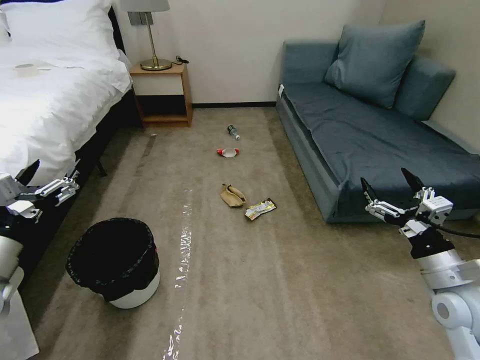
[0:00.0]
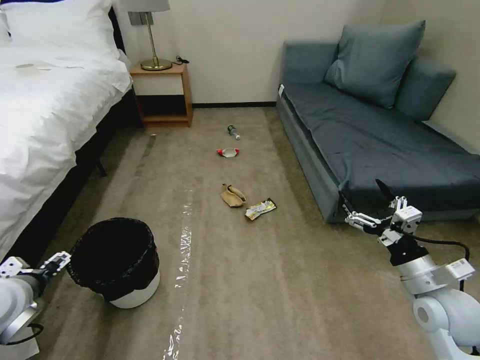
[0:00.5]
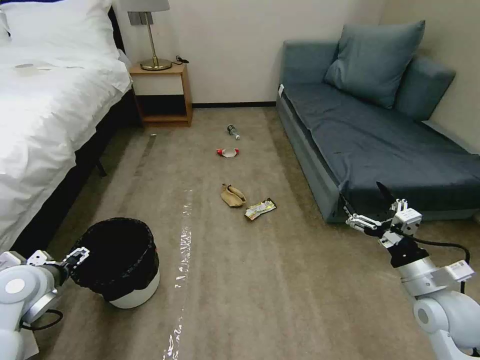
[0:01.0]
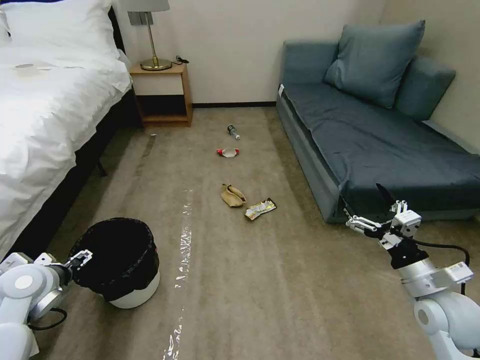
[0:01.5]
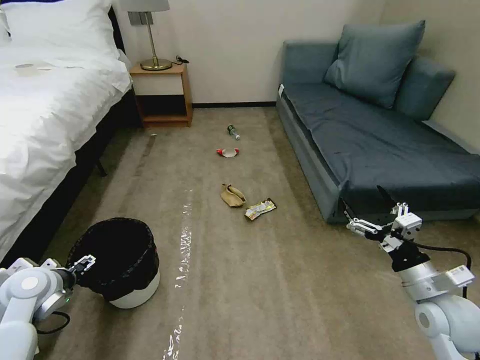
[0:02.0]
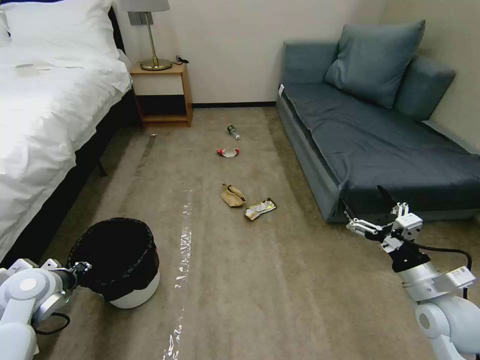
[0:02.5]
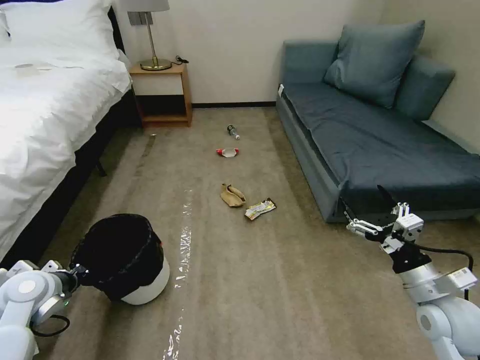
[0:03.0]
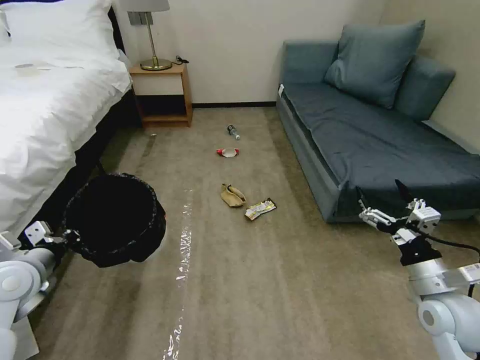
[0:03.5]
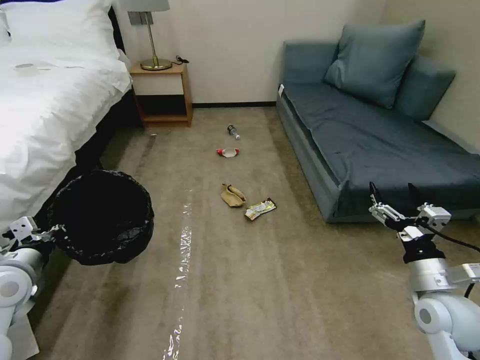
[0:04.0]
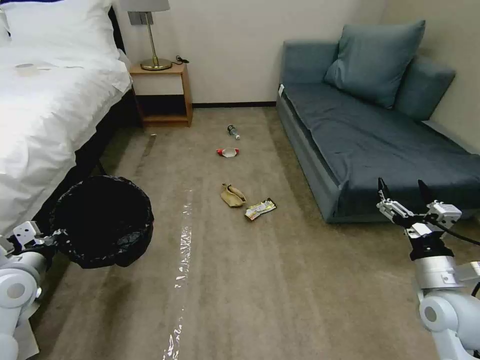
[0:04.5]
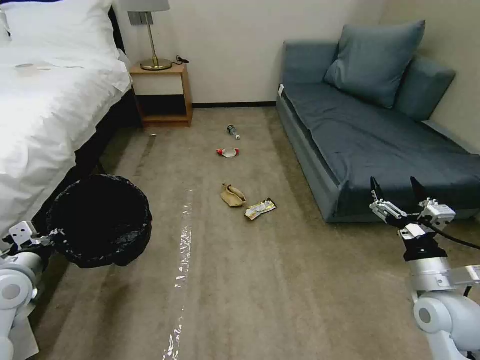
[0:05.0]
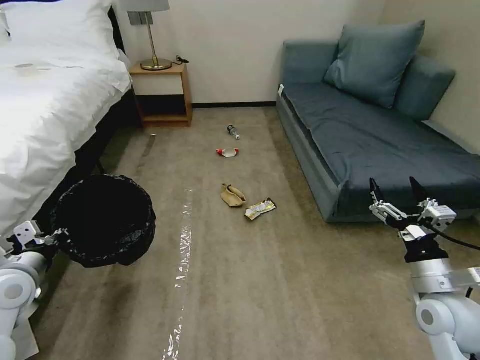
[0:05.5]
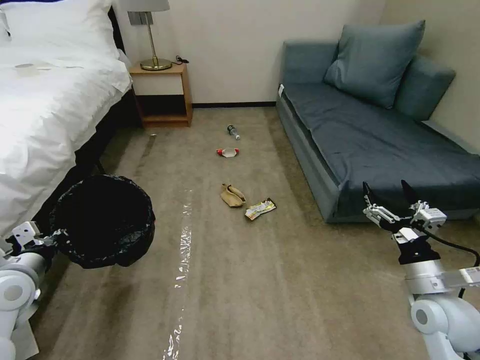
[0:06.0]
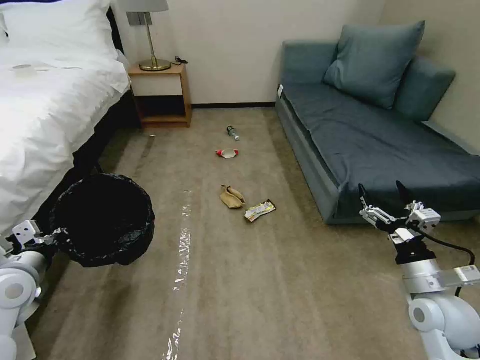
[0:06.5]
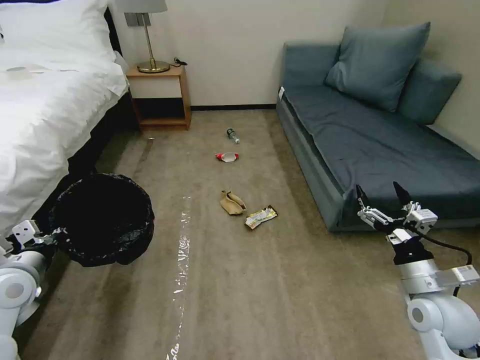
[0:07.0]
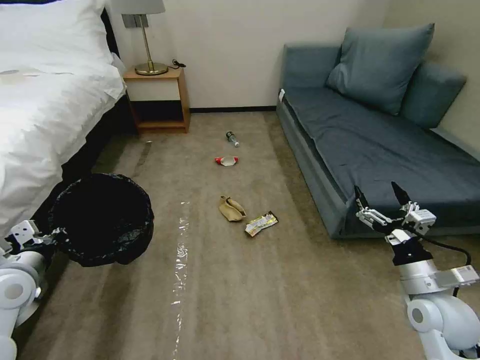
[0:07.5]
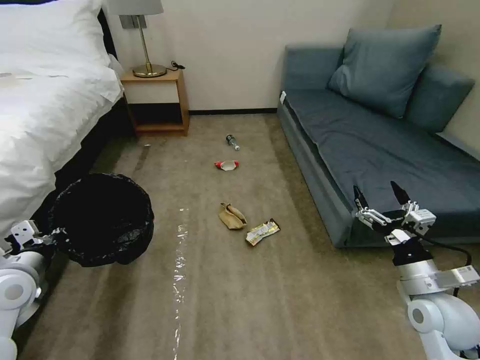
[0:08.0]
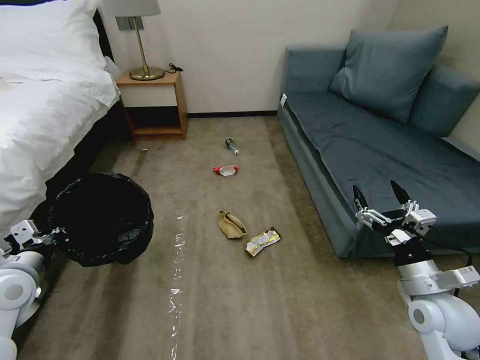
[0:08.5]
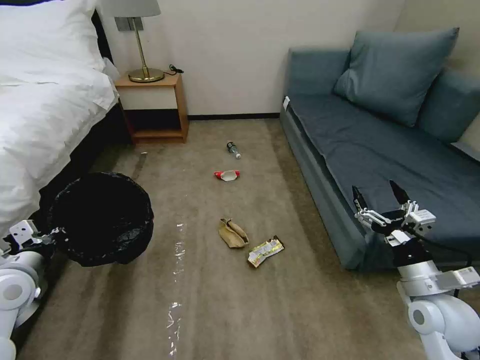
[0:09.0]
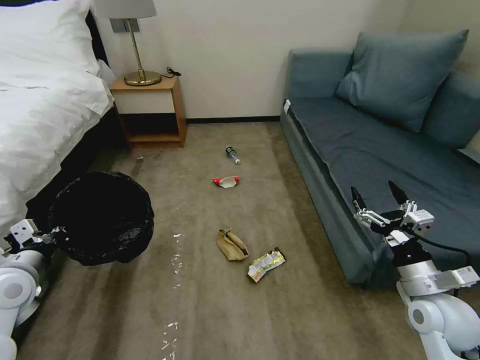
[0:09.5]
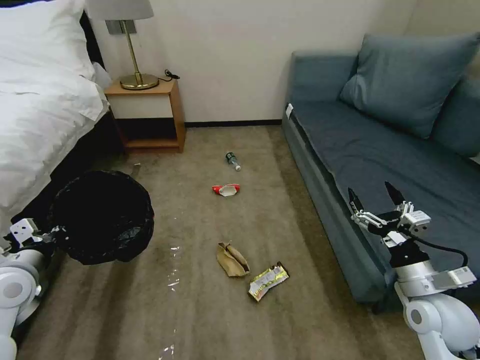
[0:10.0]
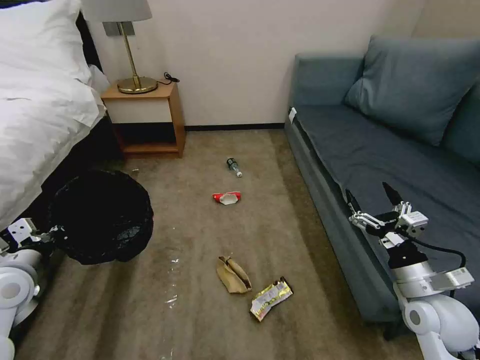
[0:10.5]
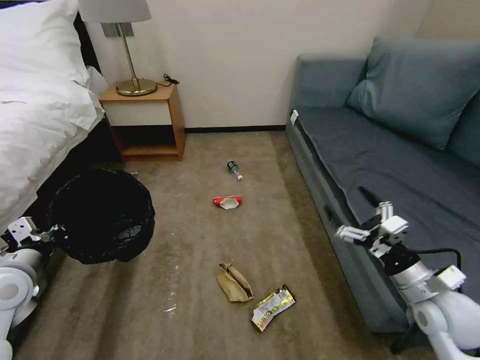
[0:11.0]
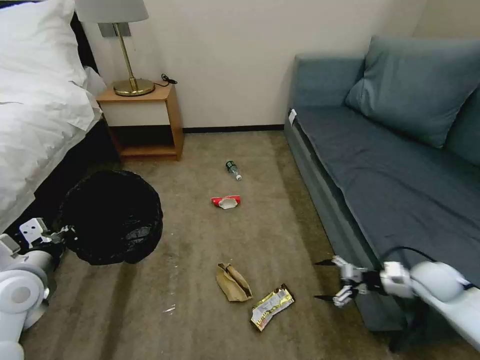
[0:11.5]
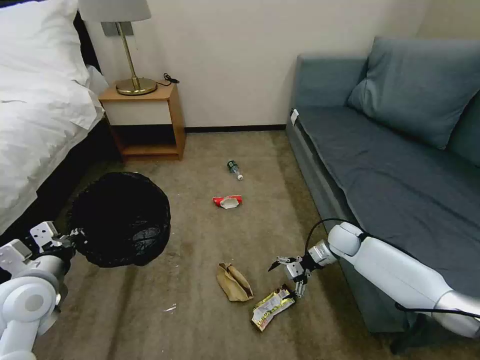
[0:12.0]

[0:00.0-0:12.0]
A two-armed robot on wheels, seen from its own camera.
Task of the whole recording: Pick up the trash bin, then pick up the garbage on the floor and place it into the trash bin.
0:02.0 to 0:04.0: The left gripper moves upward, approximately 5 cm, and closes its fingers.
0:04.0 to 0:06.0: The grippers move only a little.
0:10.0 to 0:12.0: The right gripper shifts approximately 25 cm forward and downward.

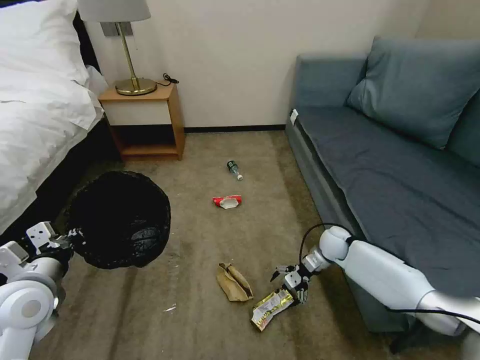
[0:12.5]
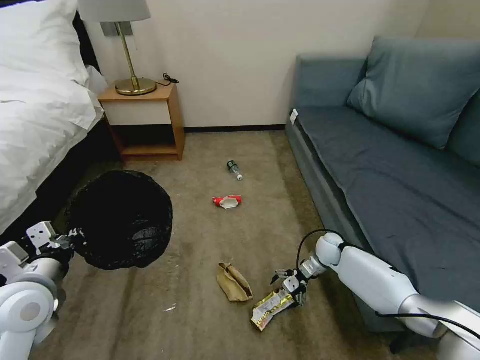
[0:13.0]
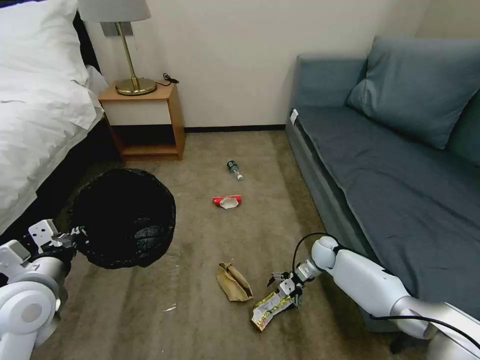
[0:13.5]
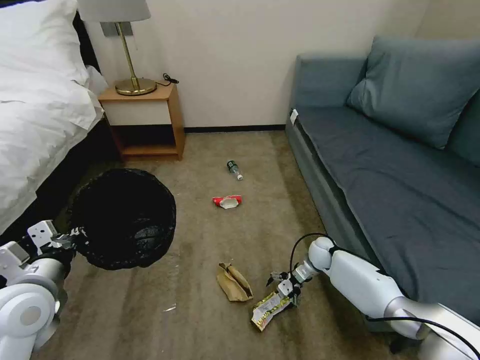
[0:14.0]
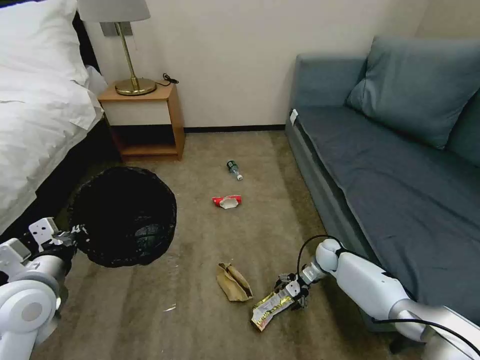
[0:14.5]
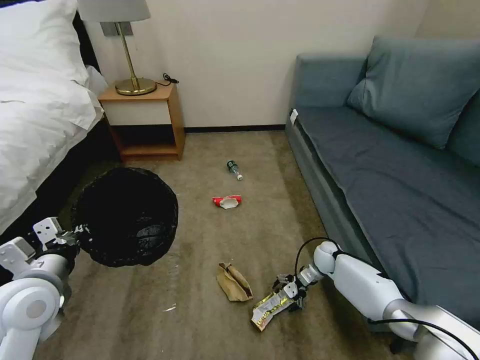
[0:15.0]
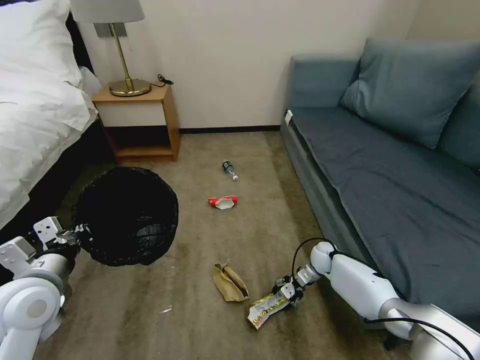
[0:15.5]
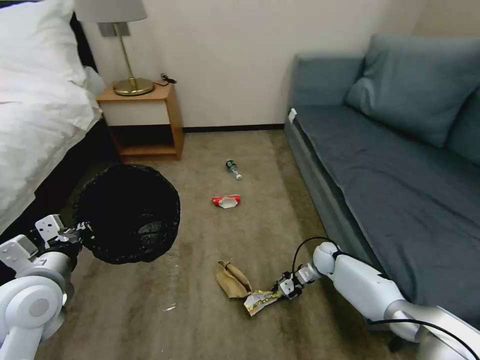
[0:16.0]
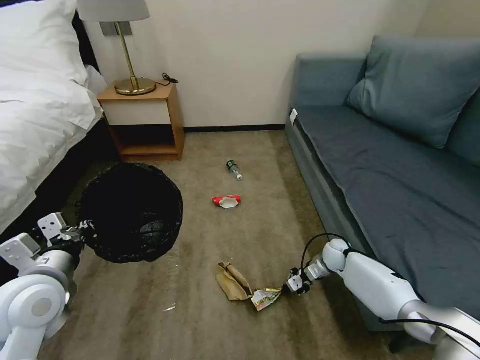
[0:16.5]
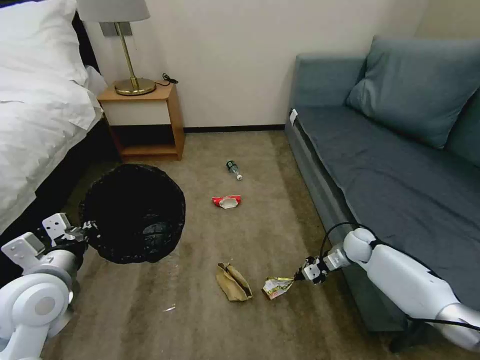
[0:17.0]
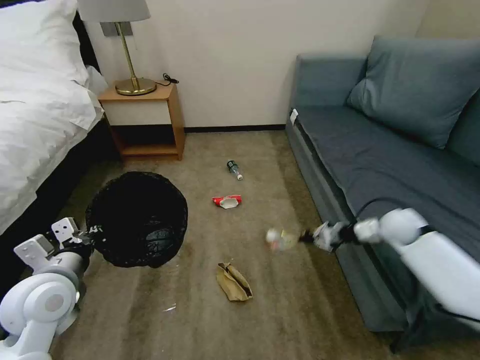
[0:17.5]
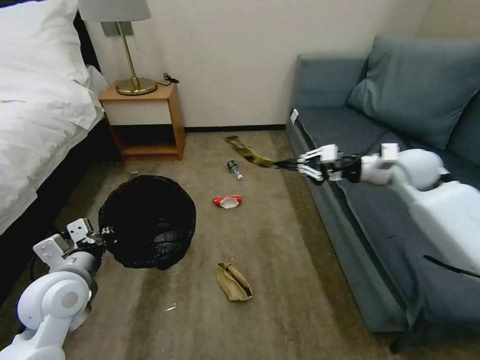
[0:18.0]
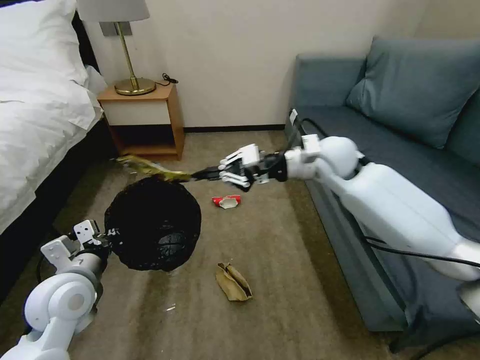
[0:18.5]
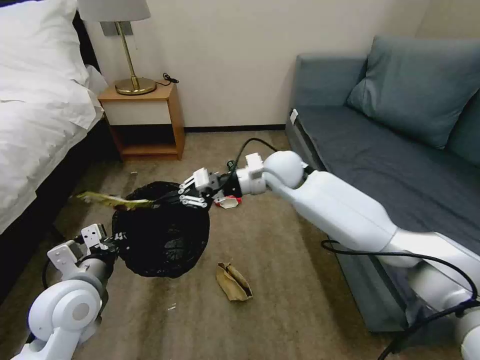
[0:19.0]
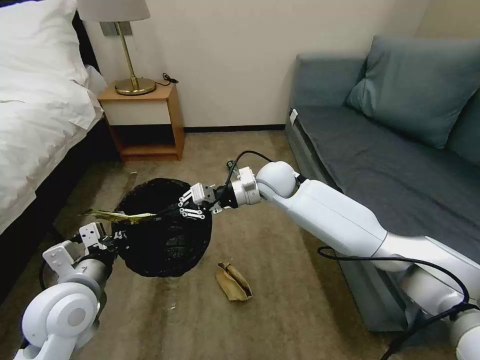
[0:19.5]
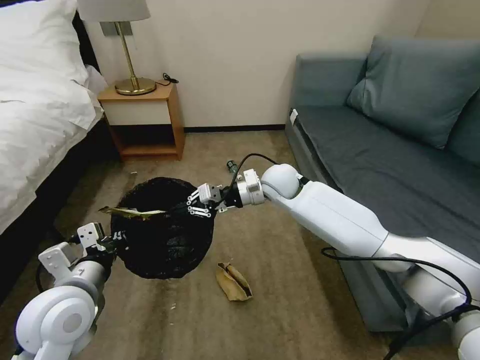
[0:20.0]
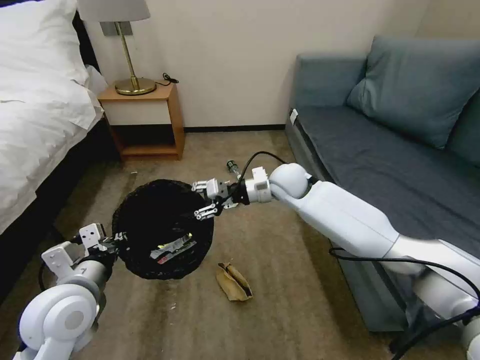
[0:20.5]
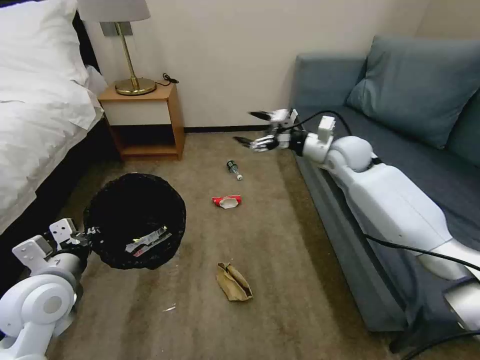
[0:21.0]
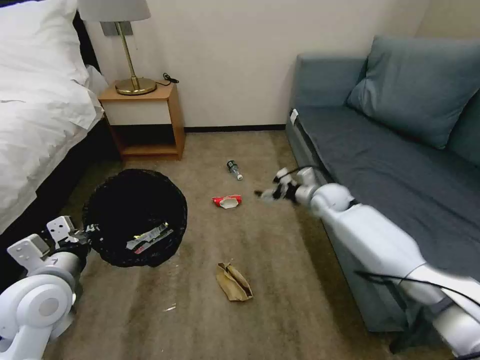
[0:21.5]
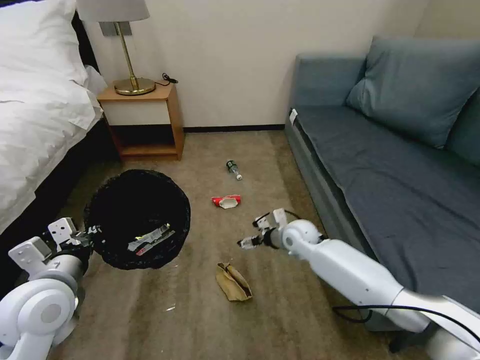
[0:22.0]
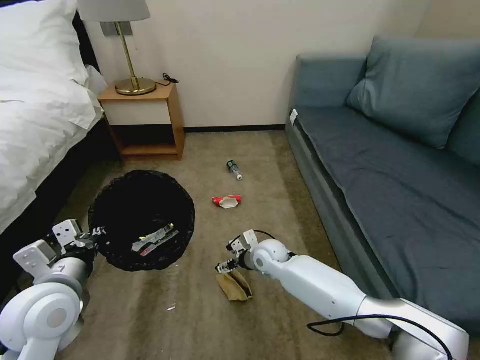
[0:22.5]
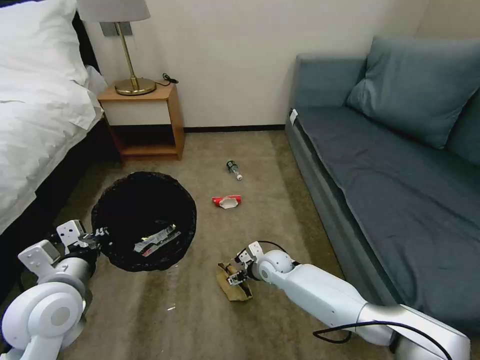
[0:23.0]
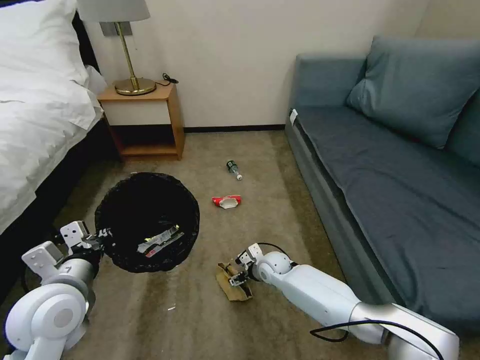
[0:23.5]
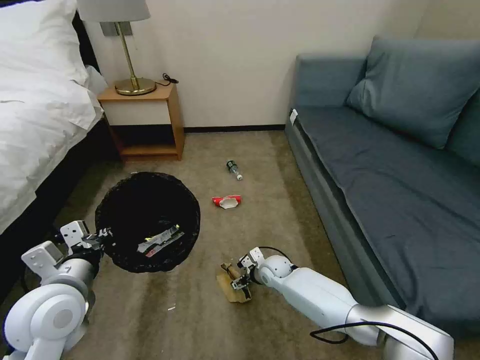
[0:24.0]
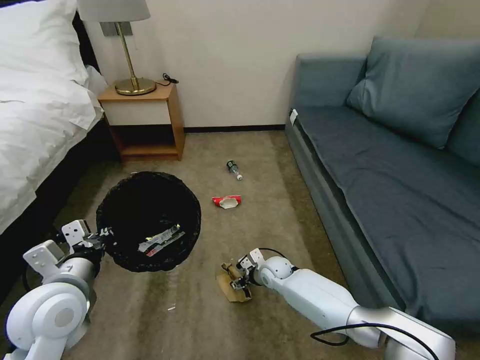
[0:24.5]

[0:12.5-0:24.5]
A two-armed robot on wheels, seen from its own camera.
Task of the whole recording: Pick up the trash bin, then pick up the garbage on the floor and place it into the trash bin.
0:12.5 to 0:14.5: The right gripper is displaced downward by roughly 5 cm.
0:14.5 to 0:16.5: The right gripper closes.
0:16.5 to 0:18.5: The right gripper goes roughly 35 cm upward.
0:18.5 to 0:20.5: The right gripper shifts approximately 10 cm downward and to the left, and opens.
0:20.5 to 0:22.5: The right gripper travels downward and backward by some 20 cm, and opens up.
0:22.5 to 0:24.5: The right gripper shifts about 10 cm downward.

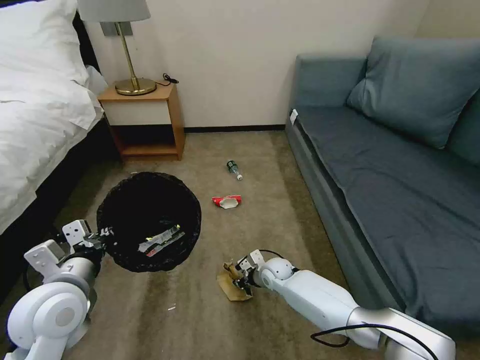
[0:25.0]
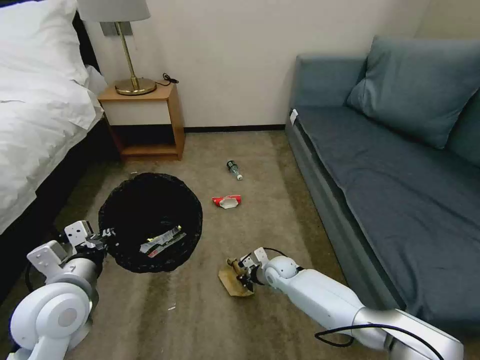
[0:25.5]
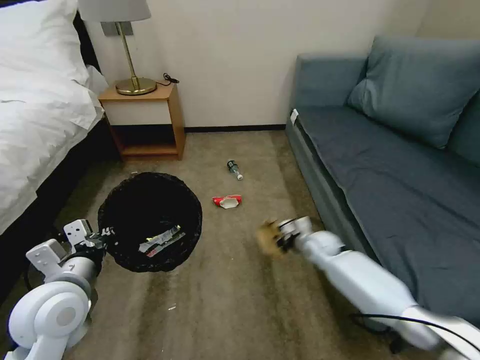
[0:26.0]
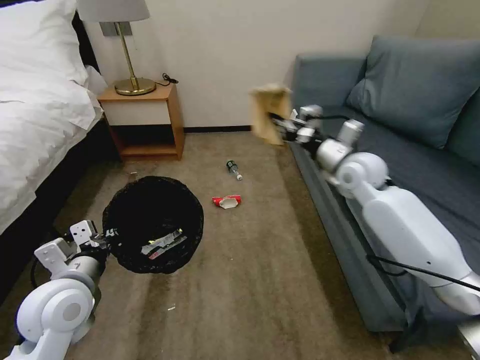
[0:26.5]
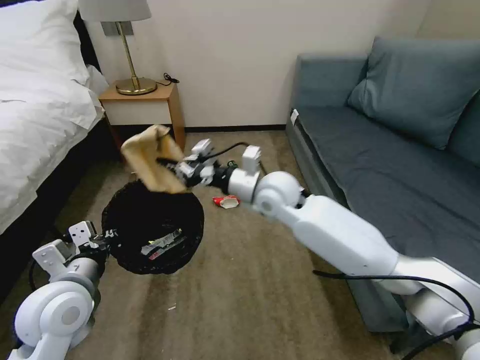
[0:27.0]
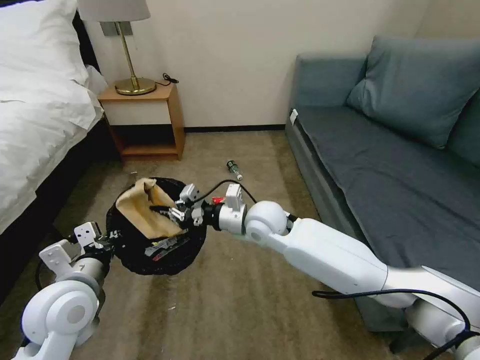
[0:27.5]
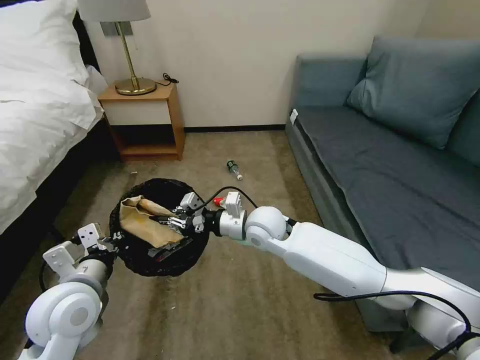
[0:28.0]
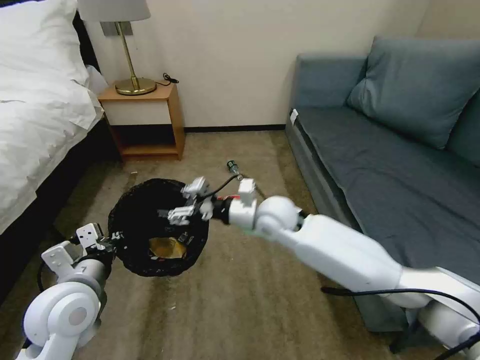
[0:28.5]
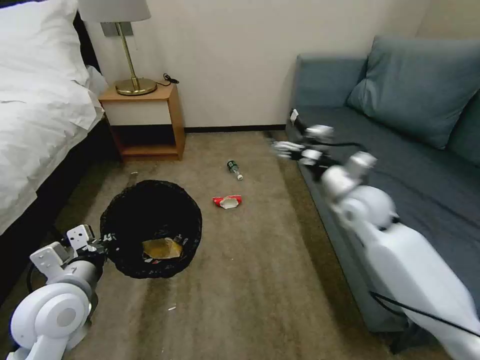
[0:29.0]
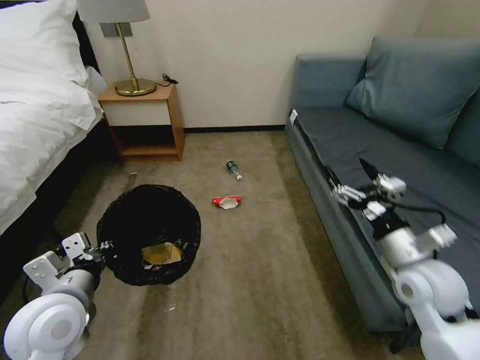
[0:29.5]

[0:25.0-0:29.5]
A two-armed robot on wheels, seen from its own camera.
Task of the whole recording: Pick up the trash bin, then pick up the garbage on the floor and place it into the trash bin.
0:25.0 to 0:27.0: The right gripper heads upward, covering about 35 cm.
0:27.0 to 0:29.5: The right gripper is displaced to the right and backward by roughly 30 cm, and opens up.
